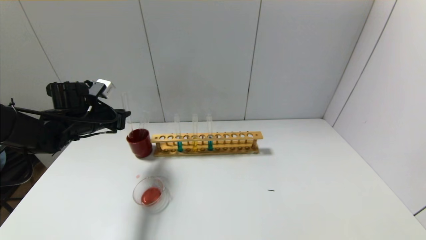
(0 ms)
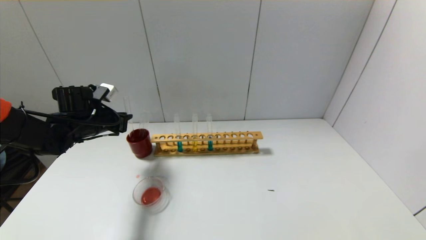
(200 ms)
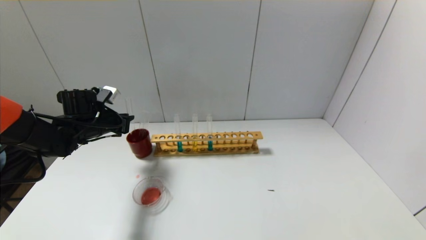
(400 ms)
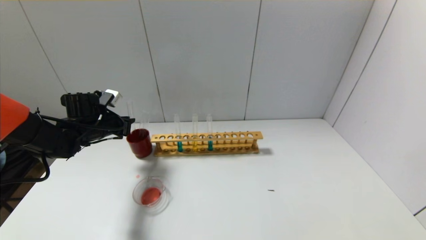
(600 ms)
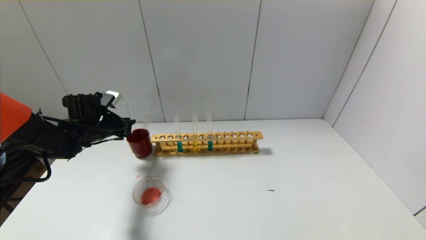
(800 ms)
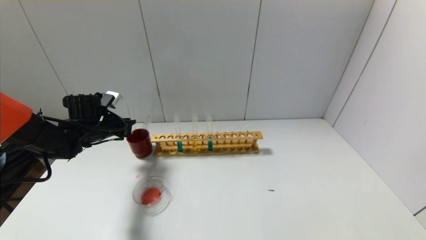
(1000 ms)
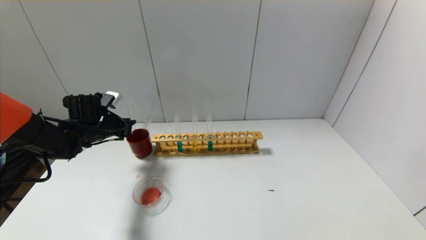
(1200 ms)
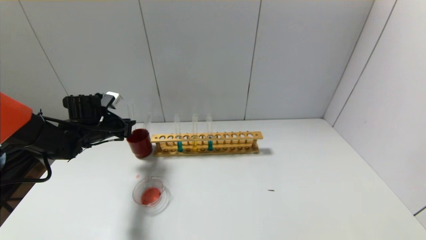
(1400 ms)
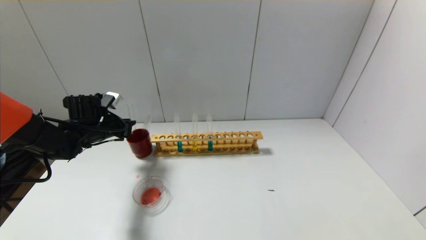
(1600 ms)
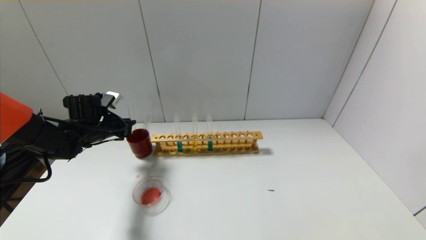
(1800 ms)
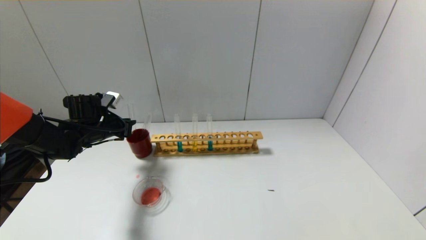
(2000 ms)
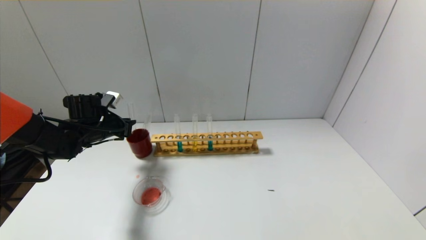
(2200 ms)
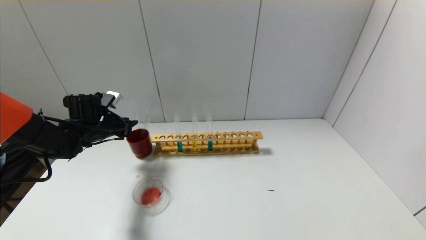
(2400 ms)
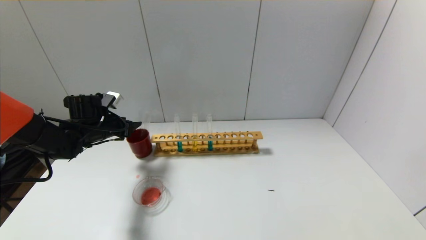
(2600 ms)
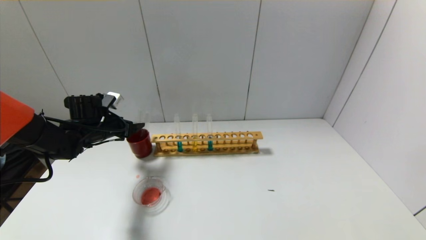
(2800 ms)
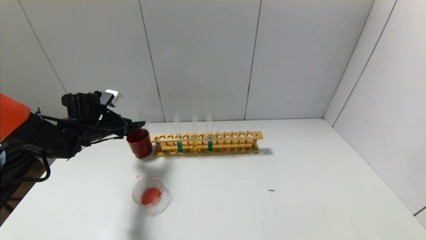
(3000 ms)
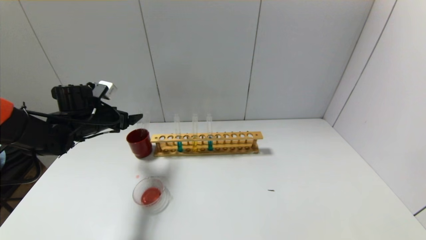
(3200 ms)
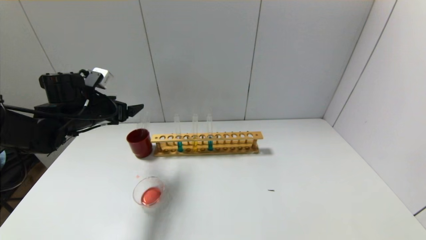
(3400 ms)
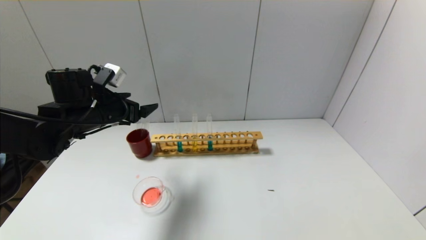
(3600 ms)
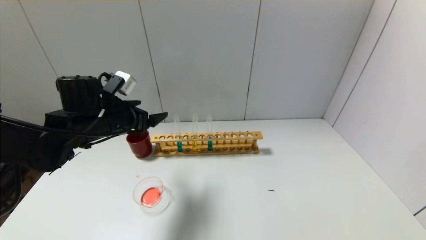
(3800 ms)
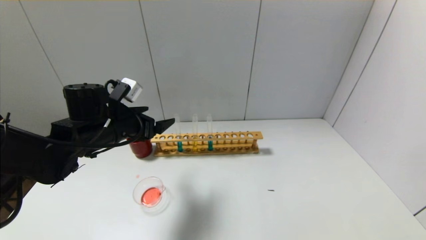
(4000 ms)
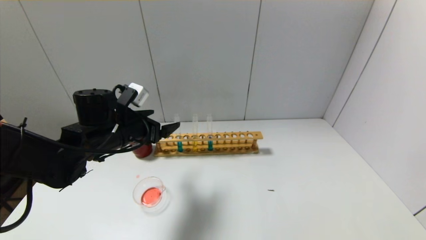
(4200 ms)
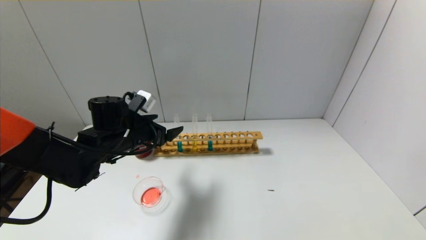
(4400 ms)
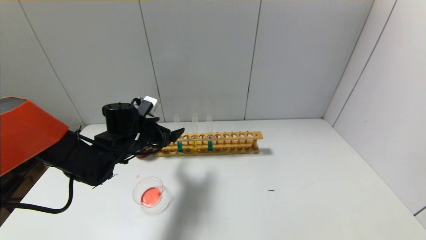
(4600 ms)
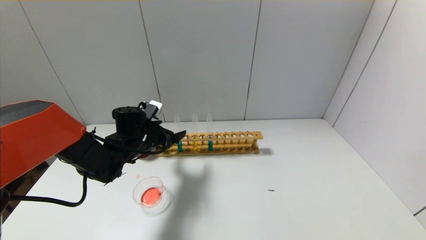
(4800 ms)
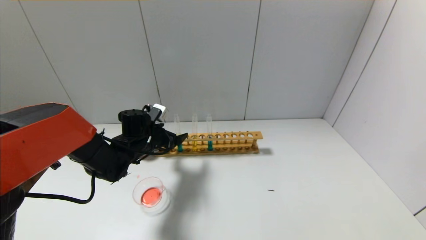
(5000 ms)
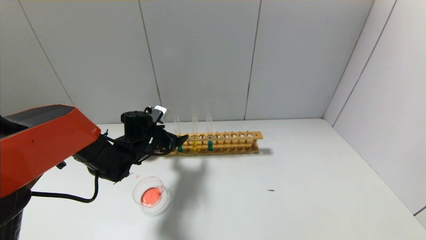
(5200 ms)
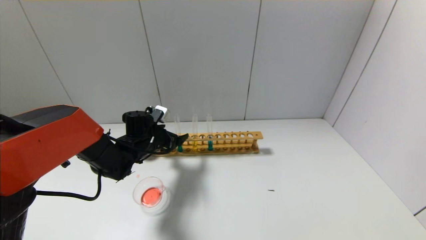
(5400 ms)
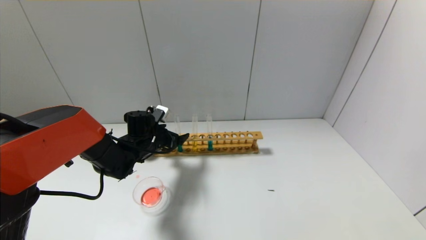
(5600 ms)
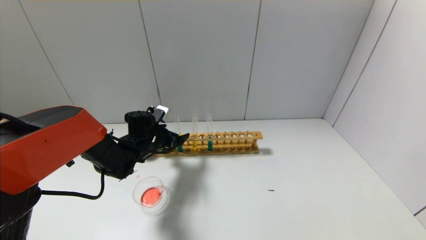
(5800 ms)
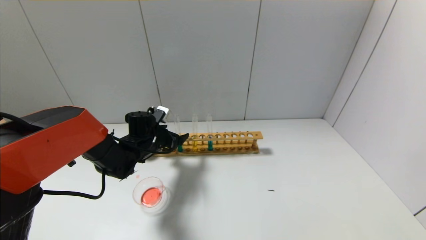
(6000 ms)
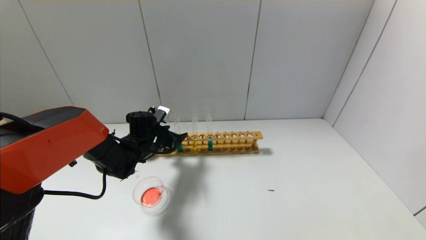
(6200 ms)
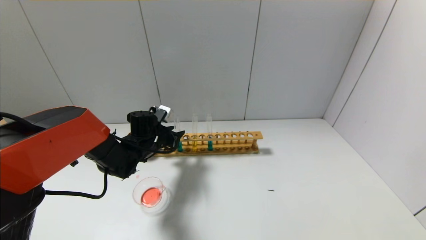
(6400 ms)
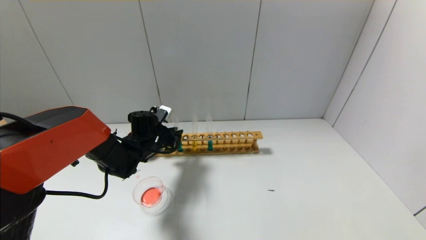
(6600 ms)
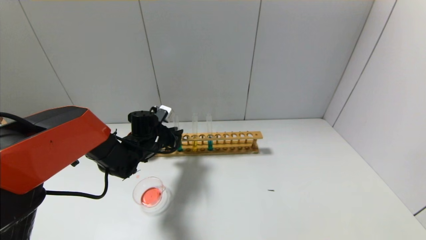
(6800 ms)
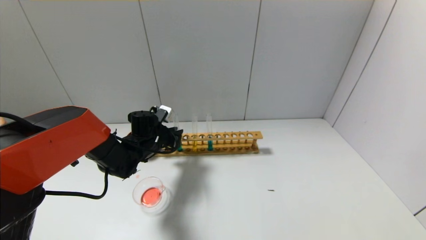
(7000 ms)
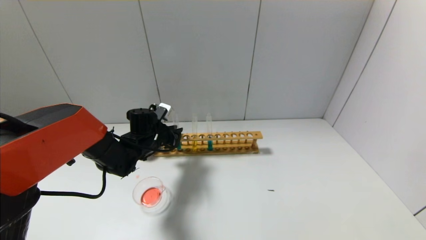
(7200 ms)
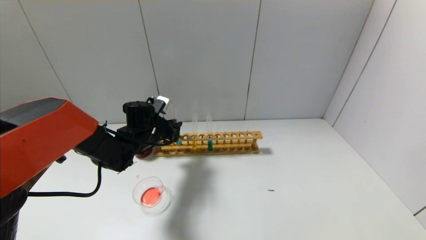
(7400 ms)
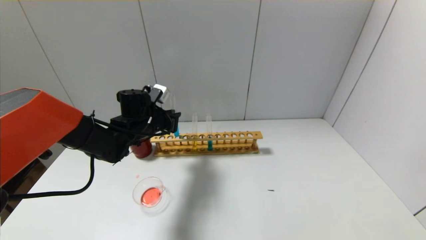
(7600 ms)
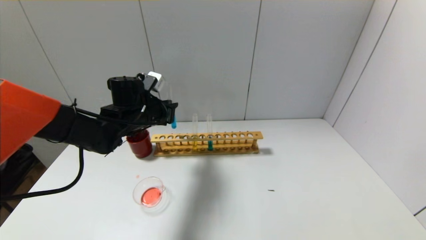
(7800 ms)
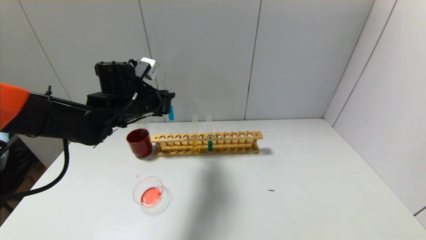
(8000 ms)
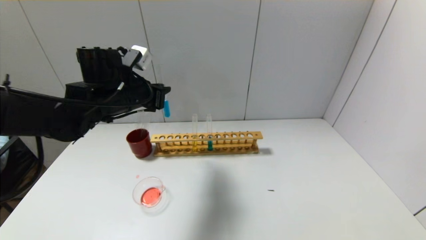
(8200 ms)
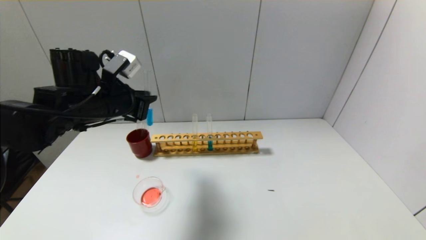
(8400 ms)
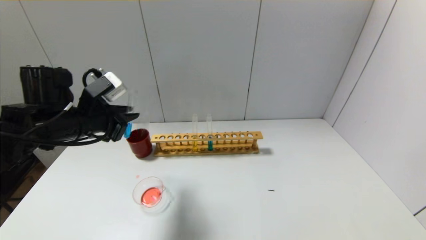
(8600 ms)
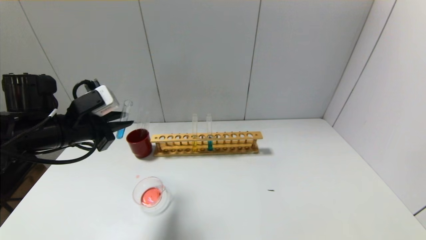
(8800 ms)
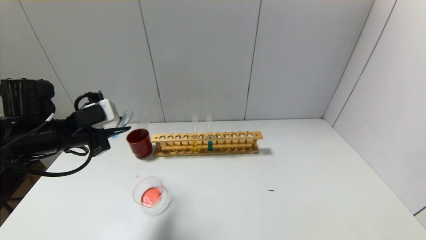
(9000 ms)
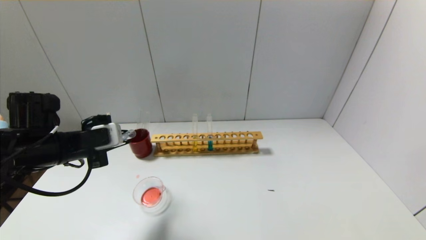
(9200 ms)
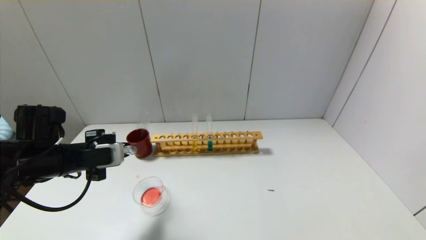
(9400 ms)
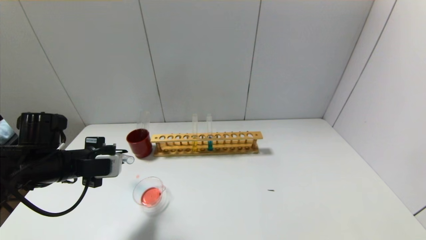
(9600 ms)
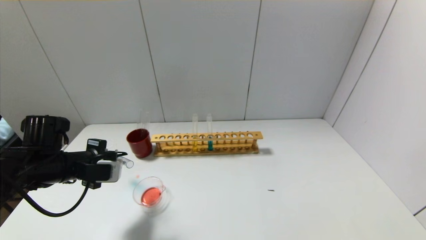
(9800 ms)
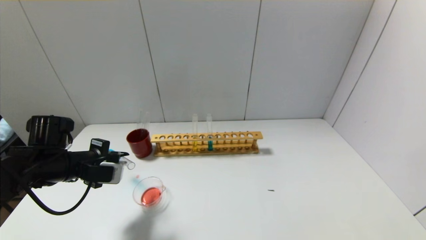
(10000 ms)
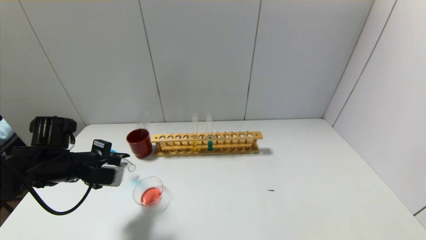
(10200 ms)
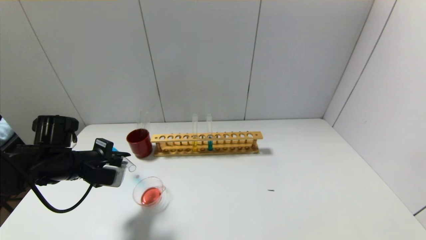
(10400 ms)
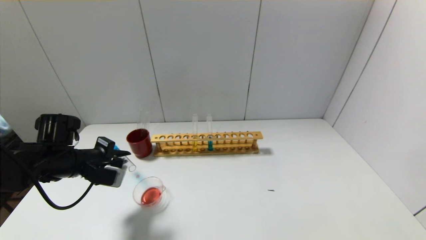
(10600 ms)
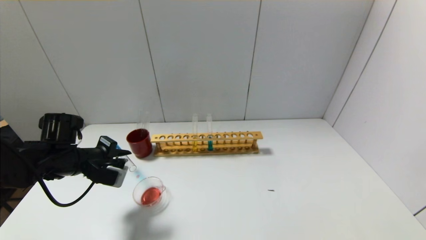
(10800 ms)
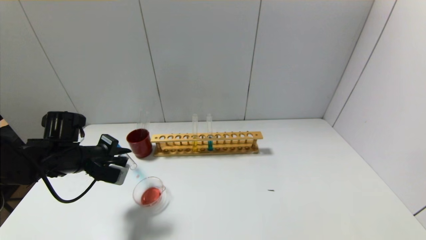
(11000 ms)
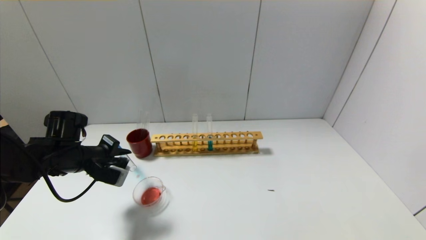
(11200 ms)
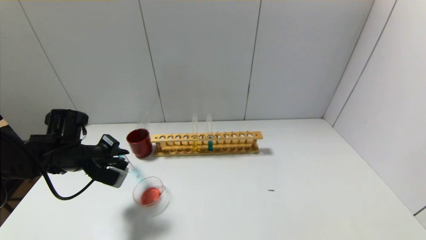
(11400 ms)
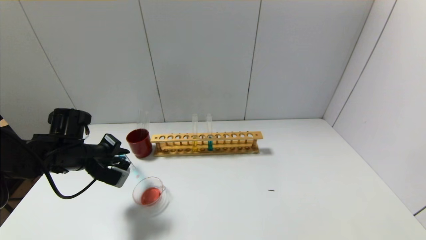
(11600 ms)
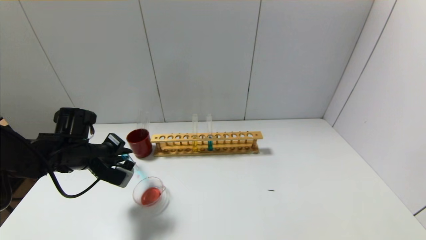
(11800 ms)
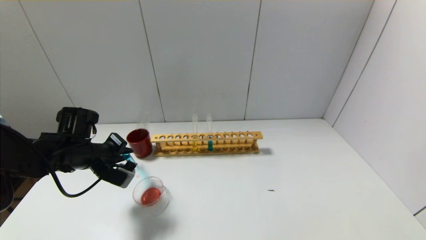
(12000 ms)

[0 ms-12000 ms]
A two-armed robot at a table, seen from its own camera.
Step, 0 ms to 2400 ms: Place the test tube into the brown cup with the left gripper.
Step, 2600 ms to 6600 ms: Grasp the blue reagent with the left gripper.
0 ms to 1600 ms: The grippers make only small movements.
1600 ms to 3000 ms: The left gripper opens its fingers.
3000 ms to 4400 ms: The left gripper shifts approximately 15 cm to the right and backward.
4400 ms to 6000 ms: The left gripper moves downward and forward, approximately 10 cm.
6000 ms to 7600 ms: The left gripper is displaced upward by approximately 5 cm, and closes up.
7600 ms to 9000 ms: The left gripper travels backward, to the left and upward by some 15 cm.
9000 ms to 10400 ms: The left gripper moves downward, roughly 10 cm.

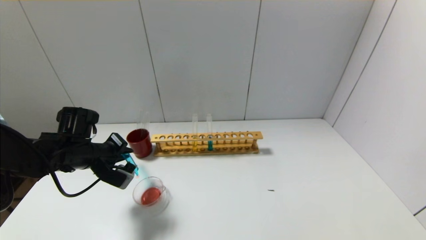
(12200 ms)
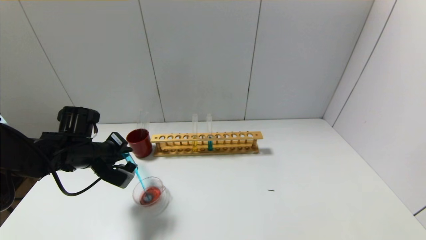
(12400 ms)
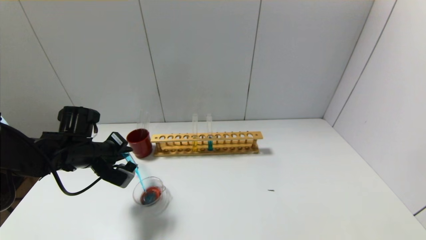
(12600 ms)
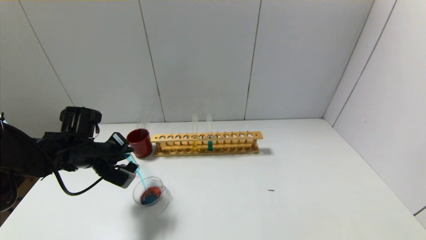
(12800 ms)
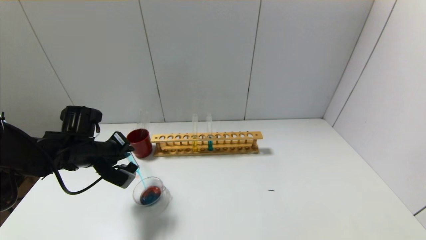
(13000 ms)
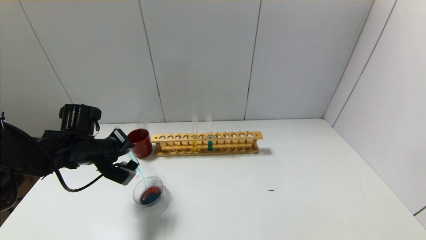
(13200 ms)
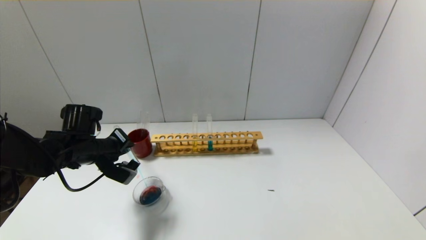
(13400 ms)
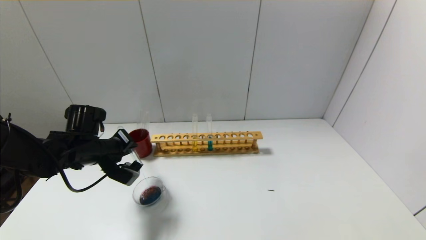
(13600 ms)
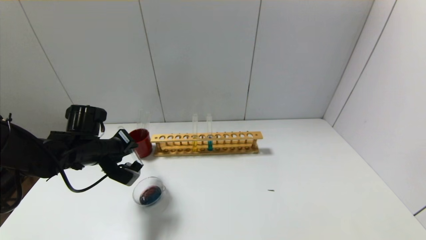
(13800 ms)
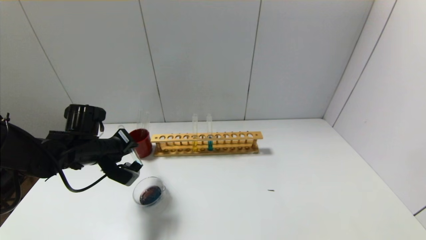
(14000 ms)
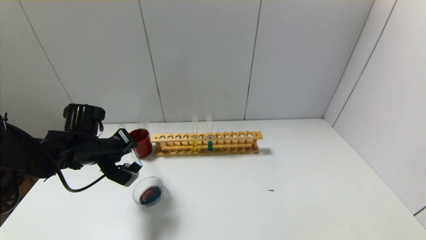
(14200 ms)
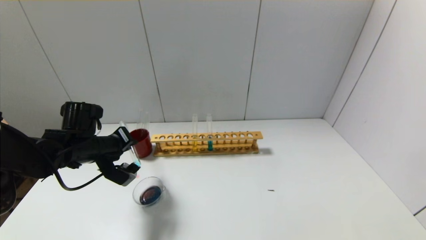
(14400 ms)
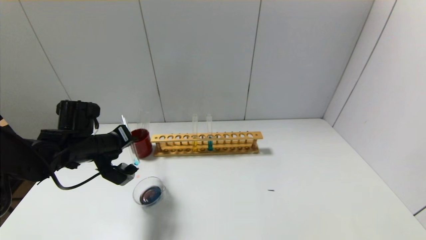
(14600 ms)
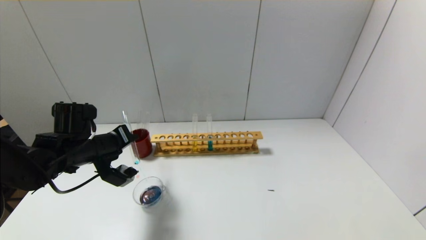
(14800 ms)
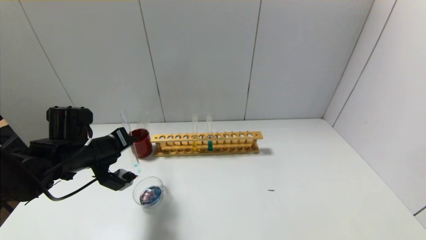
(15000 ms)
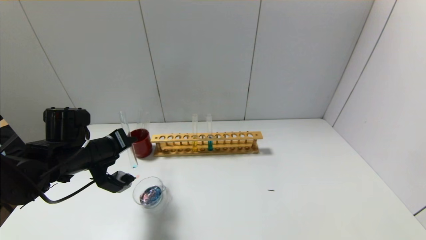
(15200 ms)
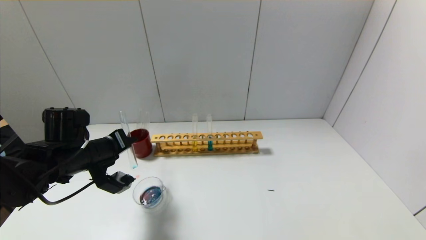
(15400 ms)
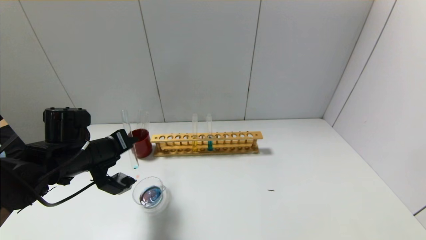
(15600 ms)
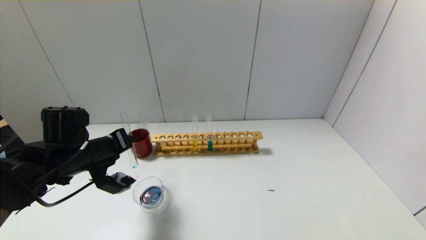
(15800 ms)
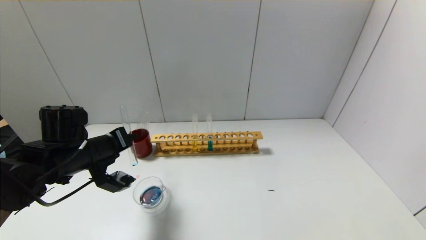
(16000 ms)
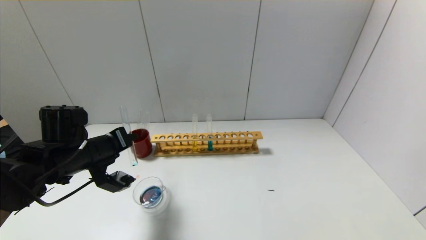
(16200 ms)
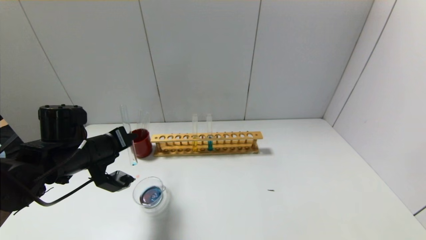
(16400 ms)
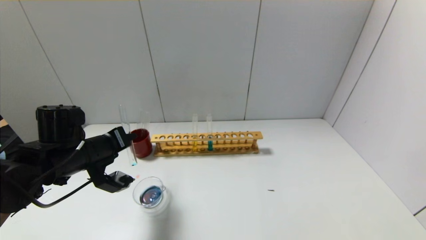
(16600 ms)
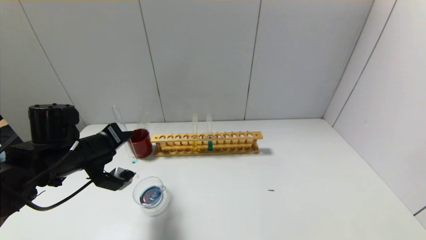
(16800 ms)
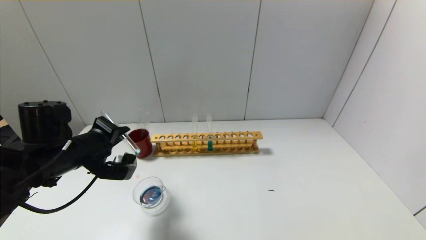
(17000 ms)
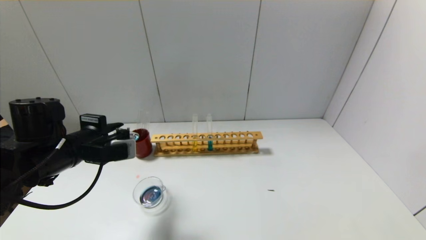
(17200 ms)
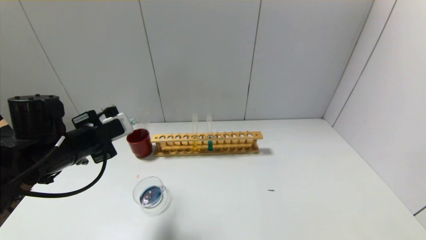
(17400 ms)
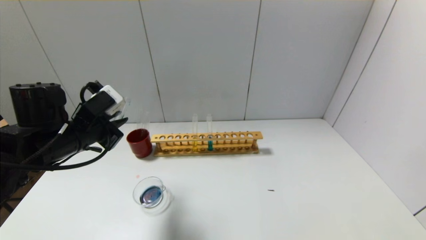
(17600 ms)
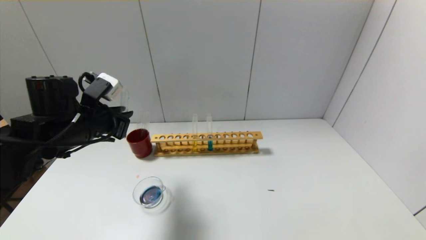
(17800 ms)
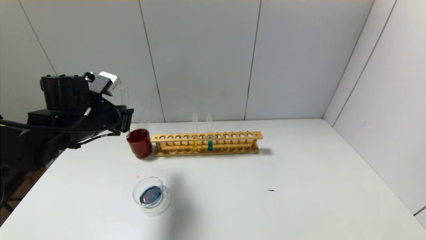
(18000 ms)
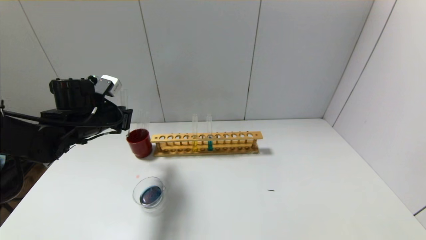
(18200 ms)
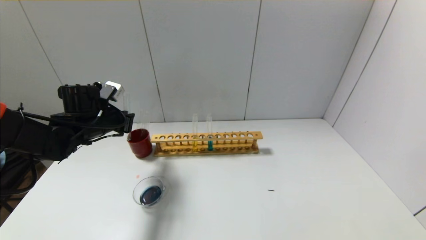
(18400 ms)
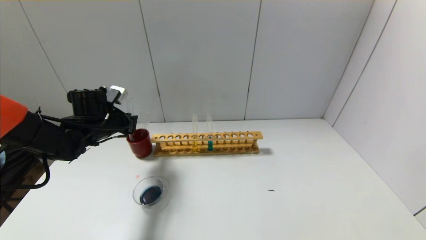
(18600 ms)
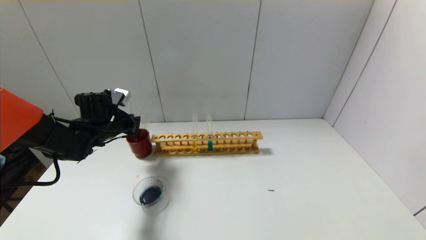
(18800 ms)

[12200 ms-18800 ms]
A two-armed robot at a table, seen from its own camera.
Step, 12200 ms to 17000 ms: Pour the blue reagent into the graduated cylinder with the left gripper.
12200 ms to 13800 ms: The grippers move only a little.
17200 ms to 18800 ms: The left gripper travels forward by some 15 cm.
